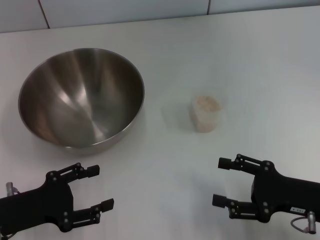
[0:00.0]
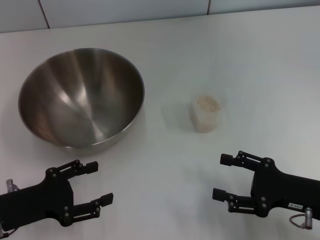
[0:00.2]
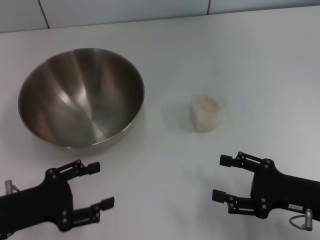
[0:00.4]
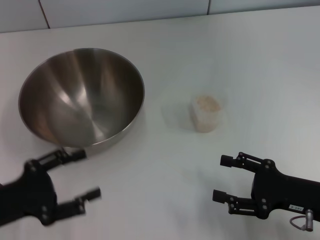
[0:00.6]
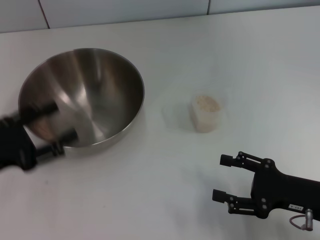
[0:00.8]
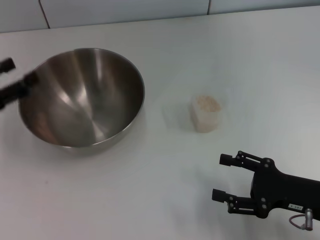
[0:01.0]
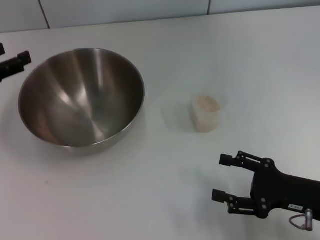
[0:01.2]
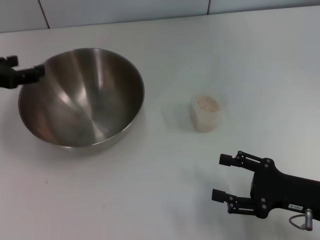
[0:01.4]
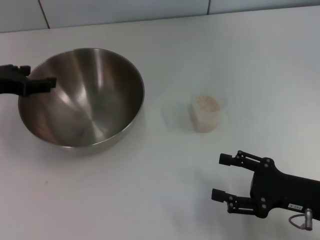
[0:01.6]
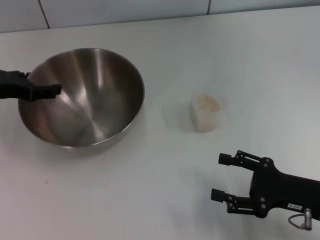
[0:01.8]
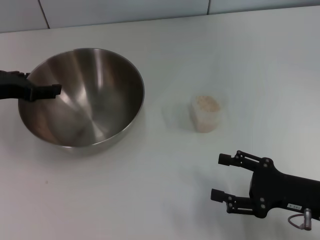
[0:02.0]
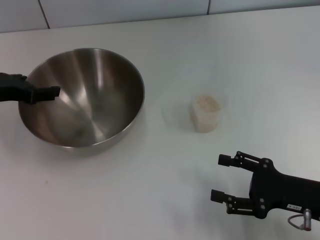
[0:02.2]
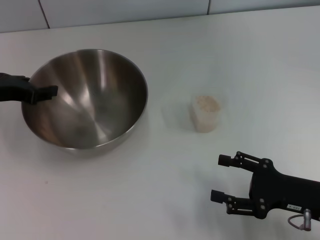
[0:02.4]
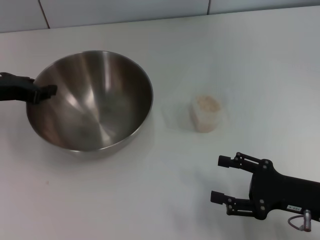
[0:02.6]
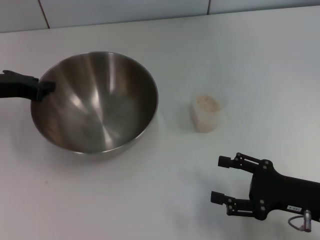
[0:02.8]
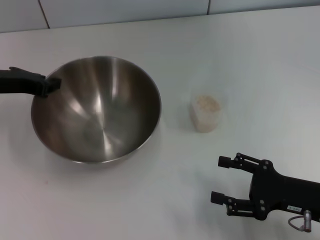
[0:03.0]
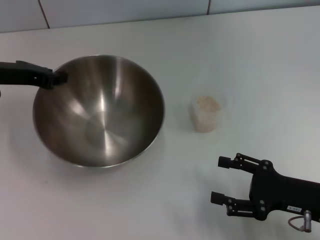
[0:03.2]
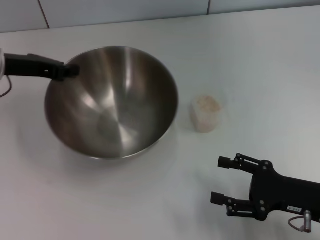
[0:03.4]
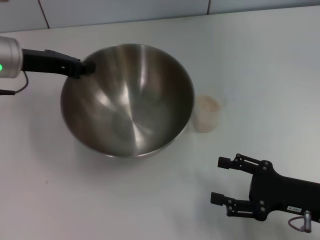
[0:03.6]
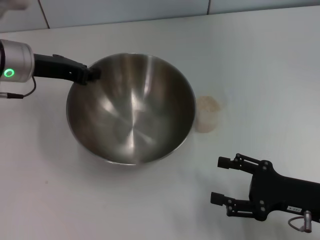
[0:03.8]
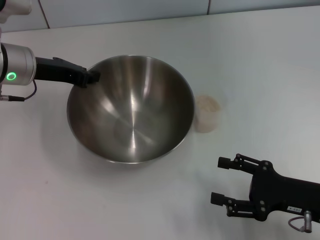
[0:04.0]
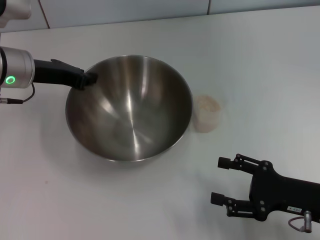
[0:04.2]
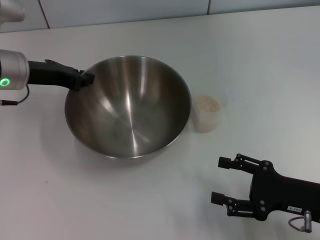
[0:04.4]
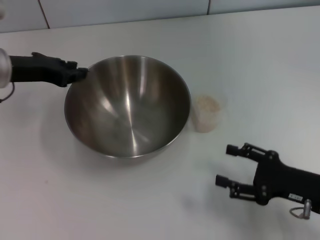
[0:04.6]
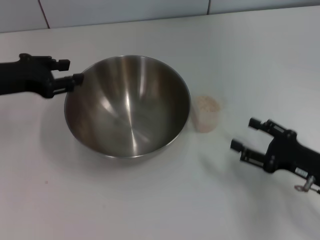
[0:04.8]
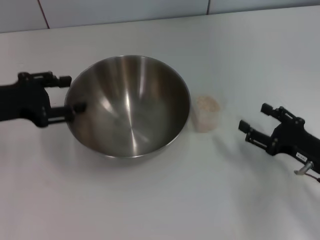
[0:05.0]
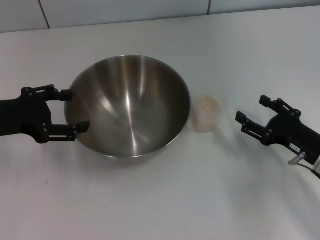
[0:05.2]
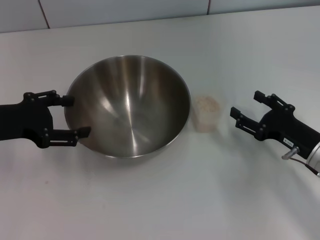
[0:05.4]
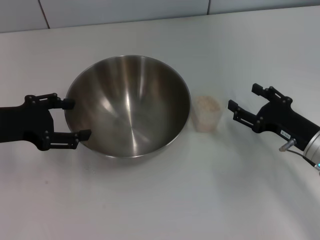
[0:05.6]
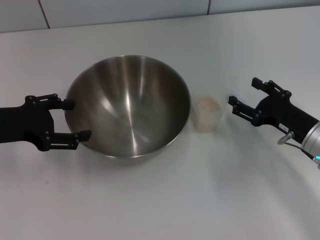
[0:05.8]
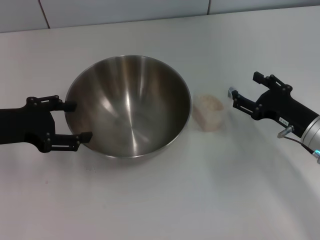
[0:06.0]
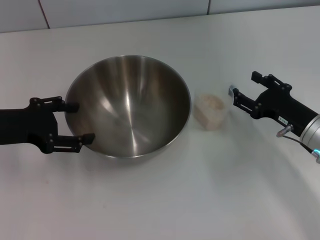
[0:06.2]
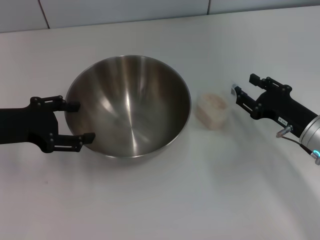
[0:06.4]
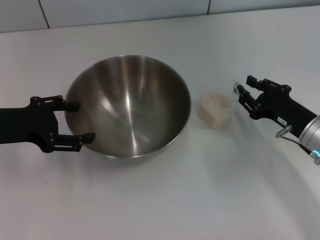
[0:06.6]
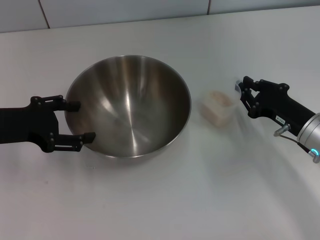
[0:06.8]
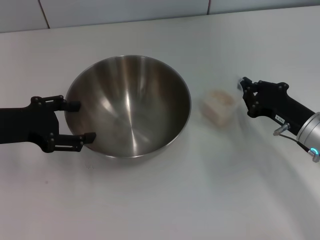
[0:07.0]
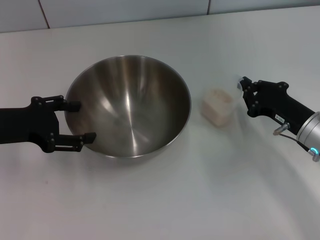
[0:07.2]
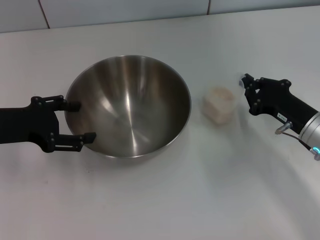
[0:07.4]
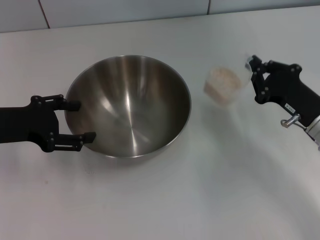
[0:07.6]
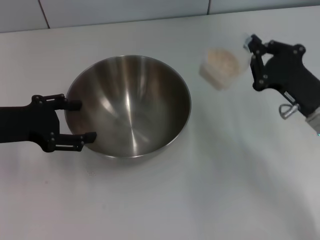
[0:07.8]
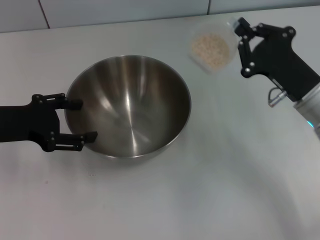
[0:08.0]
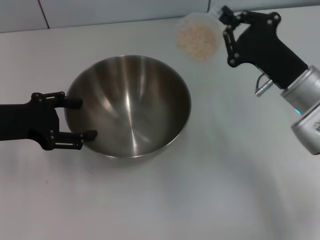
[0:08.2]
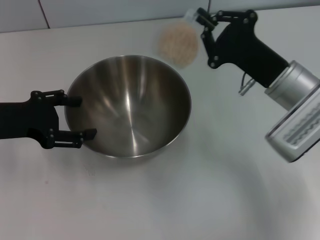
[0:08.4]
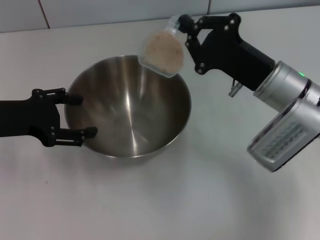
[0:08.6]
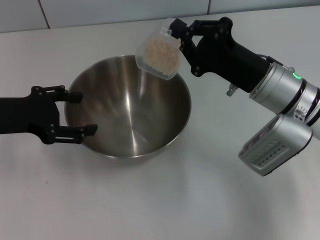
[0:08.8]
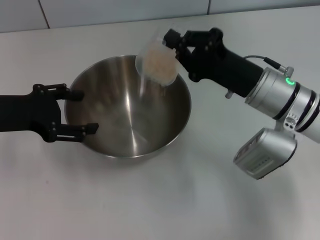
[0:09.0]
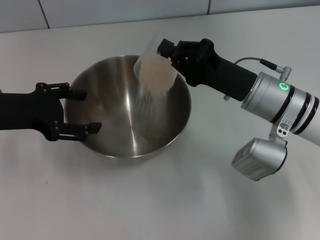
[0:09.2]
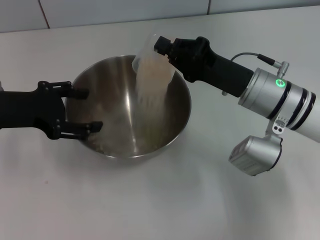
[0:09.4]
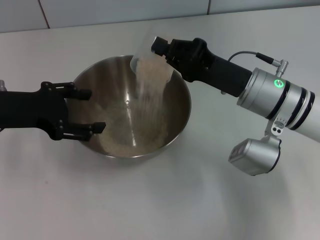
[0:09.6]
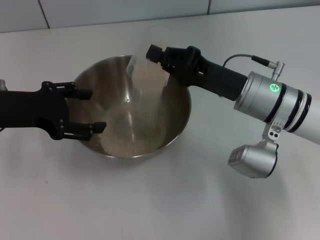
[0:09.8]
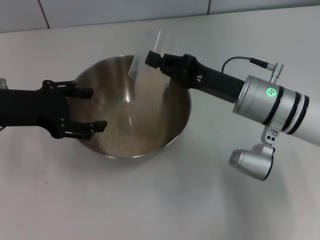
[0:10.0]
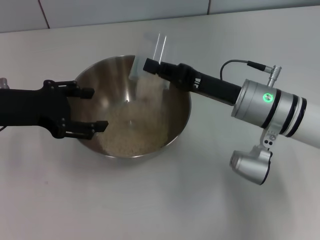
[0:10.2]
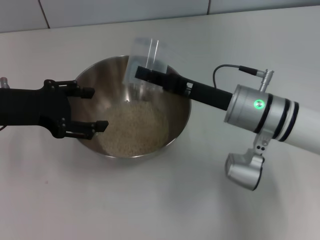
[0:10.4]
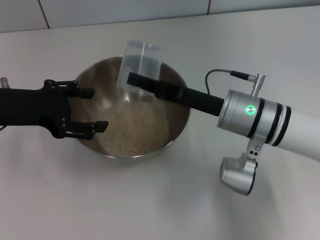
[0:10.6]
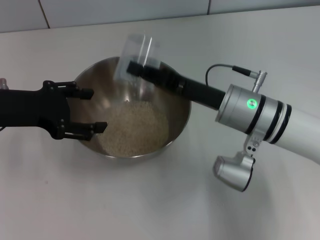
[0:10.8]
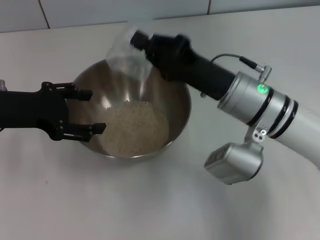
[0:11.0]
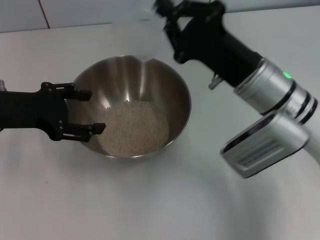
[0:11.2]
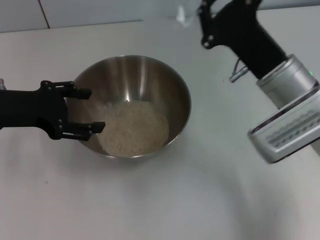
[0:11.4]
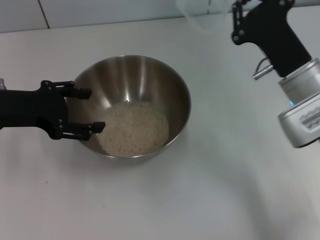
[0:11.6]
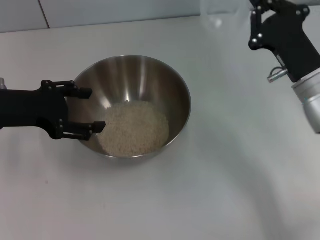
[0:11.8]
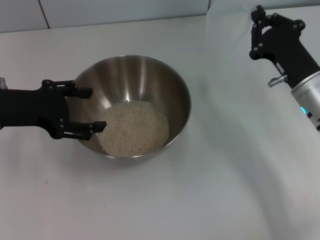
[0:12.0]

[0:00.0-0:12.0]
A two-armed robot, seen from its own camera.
Task of the whole recording: Place the bowl in the middle of the table with one hand and pour the rice from the grain cup into it with the other hand.
Step, 0:00.0 to 0:03.2: Pick up the bowl with the left gripper.
Step, 0:03.4 to 0:05.0: Place the bowl in the center of view with the left gripper.
Step, 0:05.2 to 0:07.8: Pick up the cup with rice in it with the right gripper.
Step, 0:08.0 to 0:11.6: Pour the rice from the cup into the bowl with the right gripper.
0:00.0 to 0:01.6: The left gripper is displaced forward and upward by roughly 20 cm.
0:01.6 to 0:03.0: The left gripper closes.
0:03.0 to 0:04.4: The left gripper ends up some 5 cm from where it was.
0:04.4 to 0:06.0: The right gripper travels forward by about 10 cm; the left gripper goes roughly 10 cm backward and to the left, and opens.
0:06.0 to 0:07.6: The right gripper closes its fingers.
0:07.6 to 0:09.0: The right gripper shifts some 10 cm to the left.
0:10.4 to 0:12.0: The right gripper goes some 10 cm to the right.

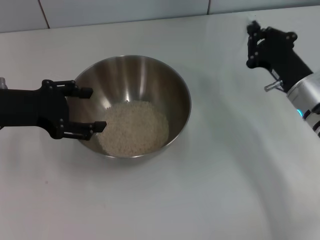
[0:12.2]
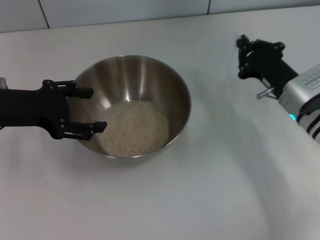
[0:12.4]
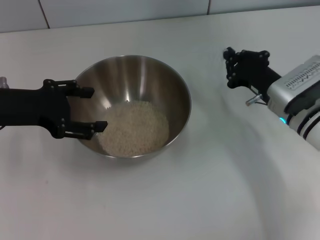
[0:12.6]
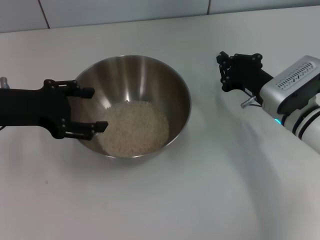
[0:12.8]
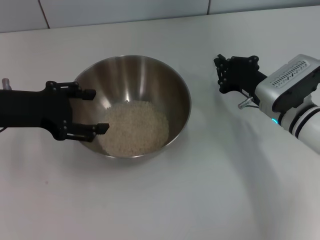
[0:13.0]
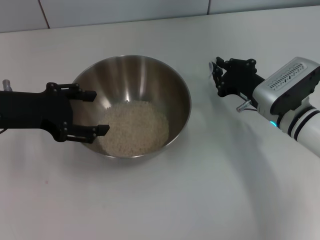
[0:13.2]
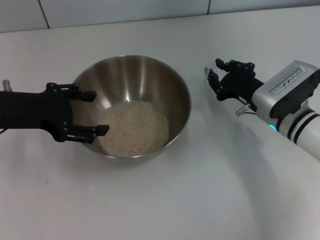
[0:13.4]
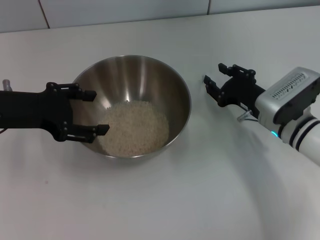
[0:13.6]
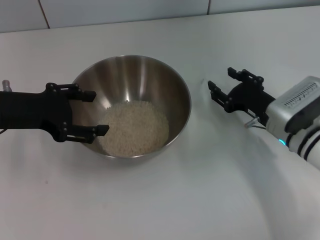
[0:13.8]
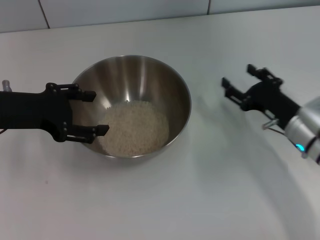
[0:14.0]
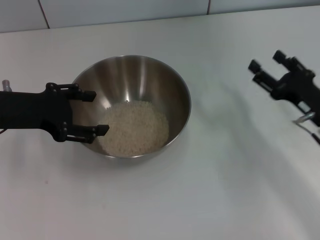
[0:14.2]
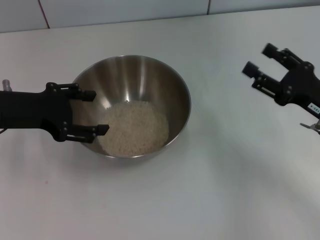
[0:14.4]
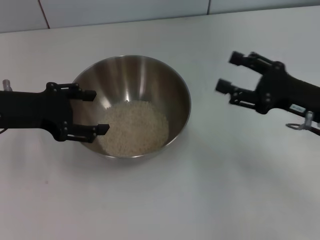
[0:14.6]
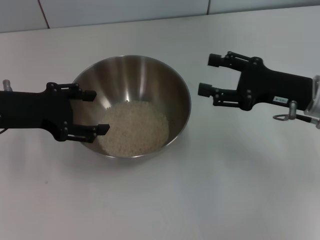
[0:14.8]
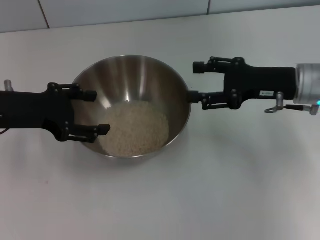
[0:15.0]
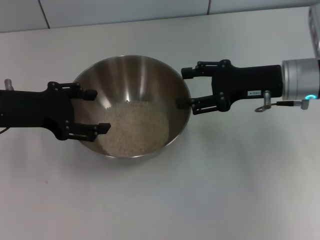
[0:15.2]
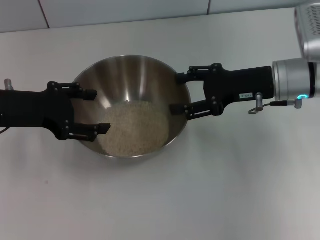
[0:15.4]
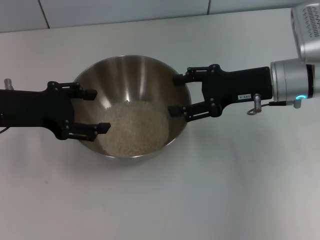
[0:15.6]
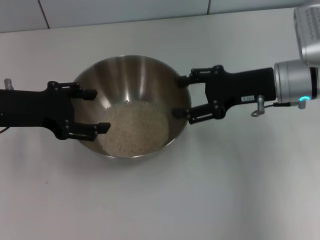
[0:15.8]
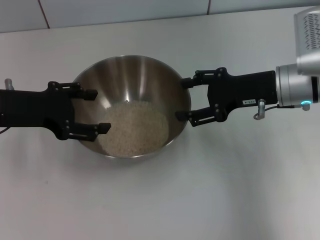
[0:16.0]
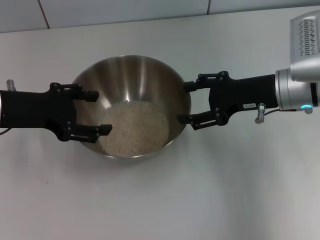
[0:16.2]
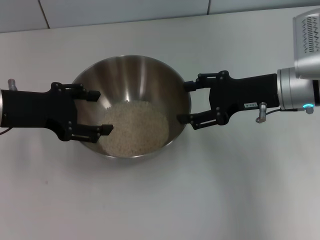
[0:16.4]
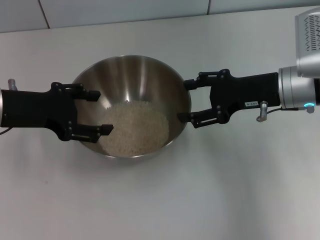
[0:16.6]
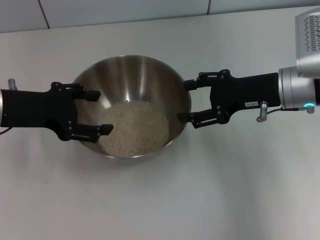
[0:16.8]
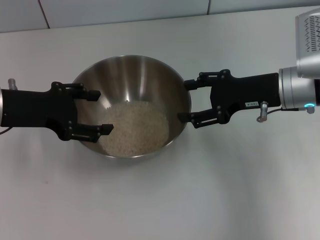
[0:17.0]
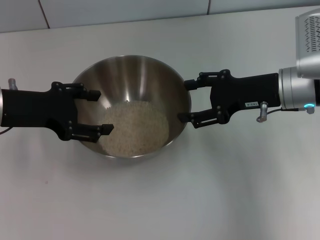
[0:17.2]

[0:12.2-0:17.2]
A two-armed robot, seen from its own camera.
Task of the whole recording: Place the bowl in the middle of the table with one hand and pour the rice from the grain cup into it with the other hand.
Step, 0:12.2 to 0:14.0: Place the cup on the table with the right gripper.
0:12.2 to 0:13.8: The right gripper opens up.
0:13.8 to 0:15.6: The right gripper moves upward and forward, roughly 10 cm, and opens up.
0:15.6 to 0:17.2: The grippers stay close to where they were, moving slightly.
